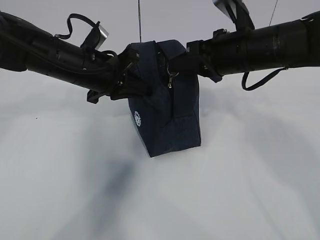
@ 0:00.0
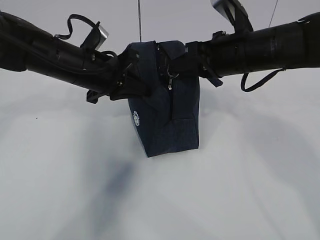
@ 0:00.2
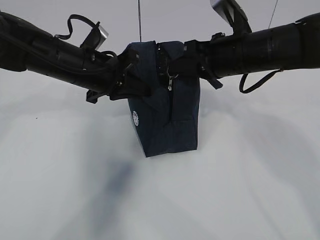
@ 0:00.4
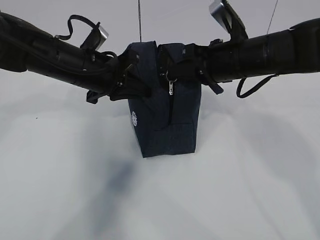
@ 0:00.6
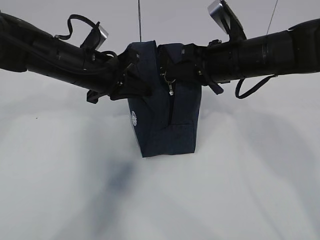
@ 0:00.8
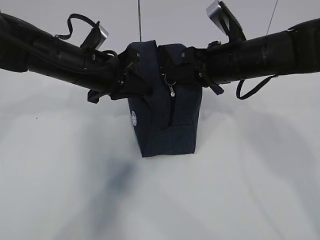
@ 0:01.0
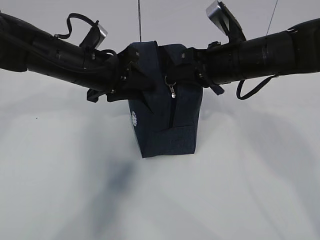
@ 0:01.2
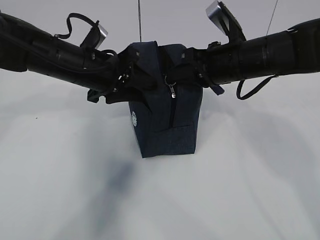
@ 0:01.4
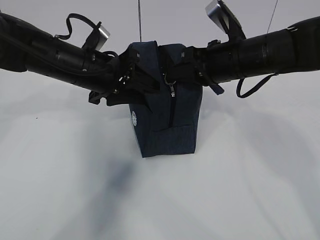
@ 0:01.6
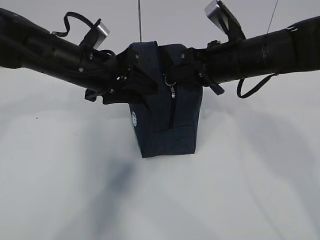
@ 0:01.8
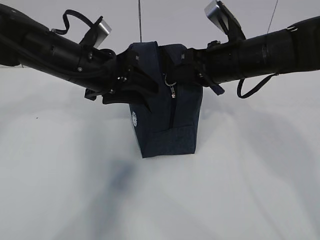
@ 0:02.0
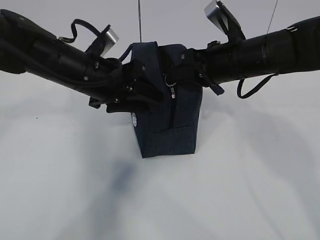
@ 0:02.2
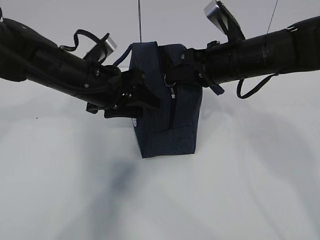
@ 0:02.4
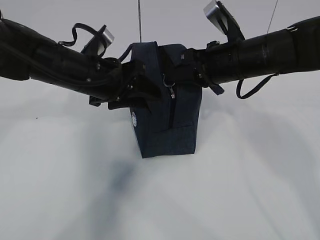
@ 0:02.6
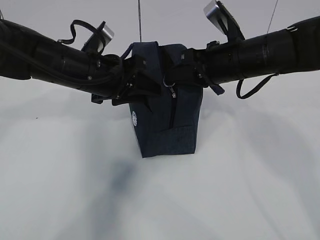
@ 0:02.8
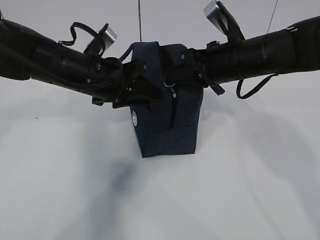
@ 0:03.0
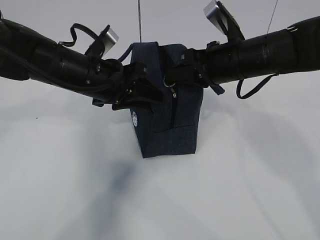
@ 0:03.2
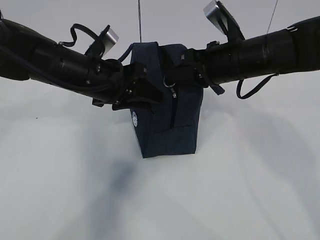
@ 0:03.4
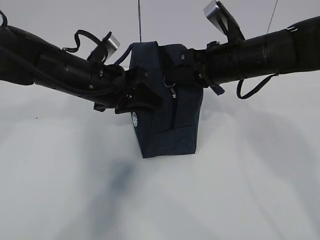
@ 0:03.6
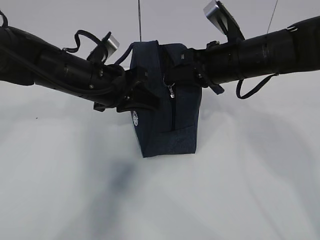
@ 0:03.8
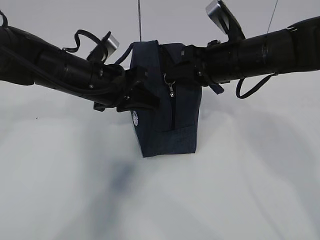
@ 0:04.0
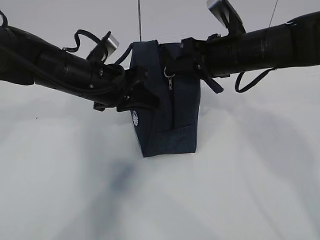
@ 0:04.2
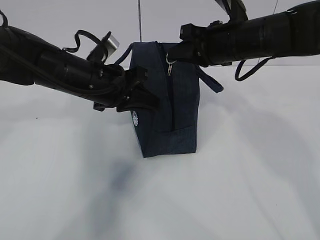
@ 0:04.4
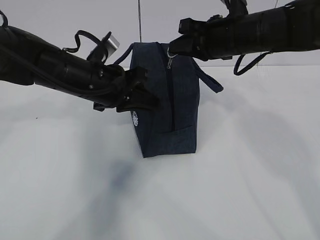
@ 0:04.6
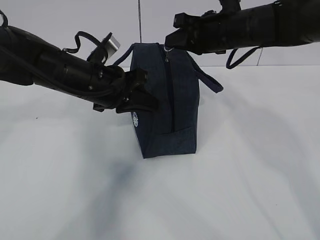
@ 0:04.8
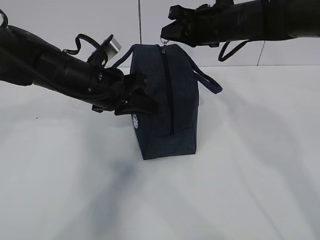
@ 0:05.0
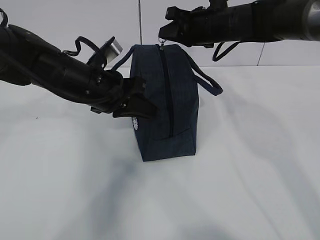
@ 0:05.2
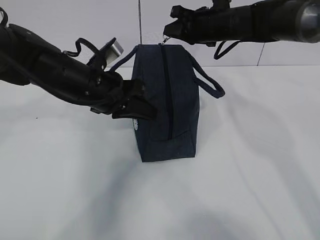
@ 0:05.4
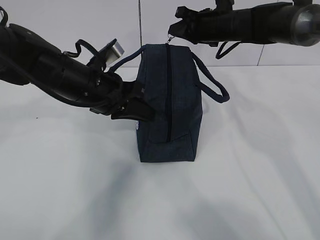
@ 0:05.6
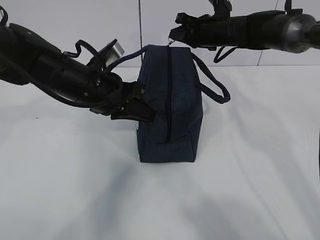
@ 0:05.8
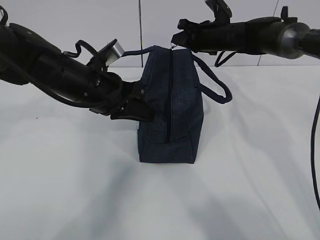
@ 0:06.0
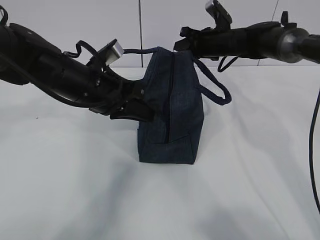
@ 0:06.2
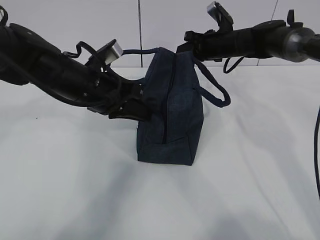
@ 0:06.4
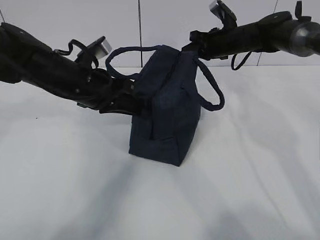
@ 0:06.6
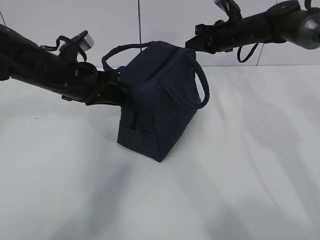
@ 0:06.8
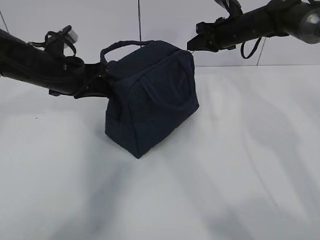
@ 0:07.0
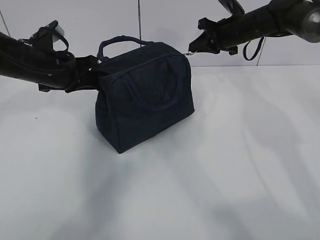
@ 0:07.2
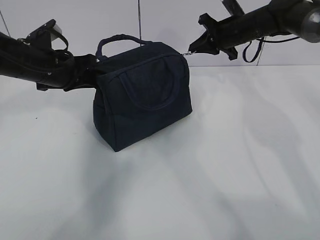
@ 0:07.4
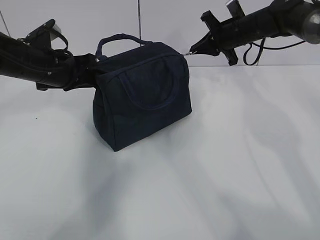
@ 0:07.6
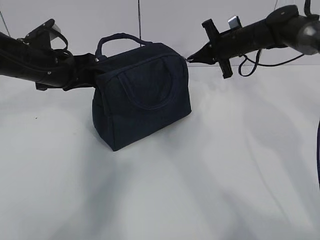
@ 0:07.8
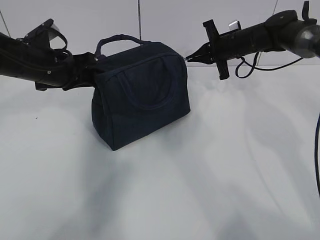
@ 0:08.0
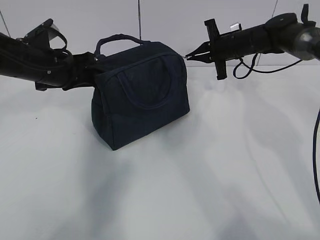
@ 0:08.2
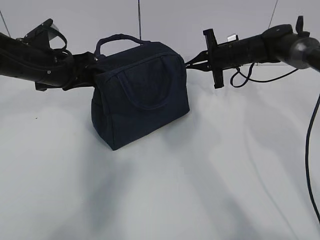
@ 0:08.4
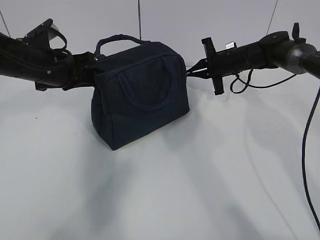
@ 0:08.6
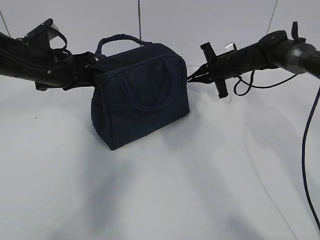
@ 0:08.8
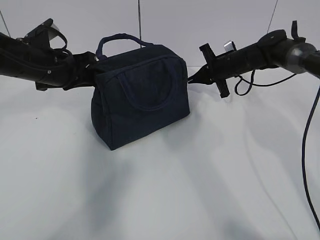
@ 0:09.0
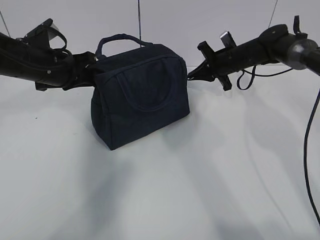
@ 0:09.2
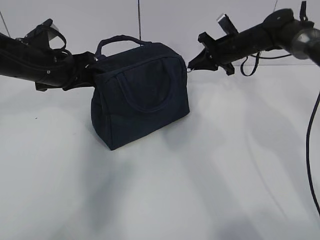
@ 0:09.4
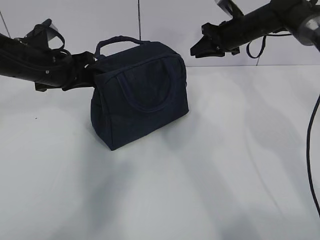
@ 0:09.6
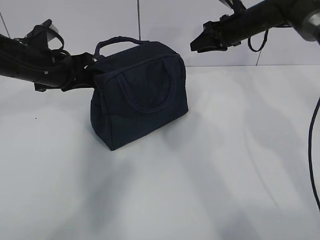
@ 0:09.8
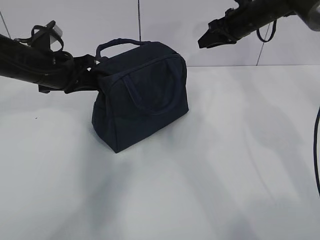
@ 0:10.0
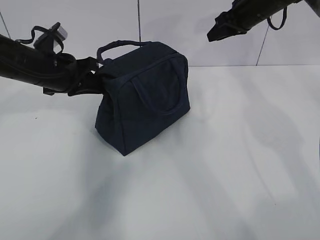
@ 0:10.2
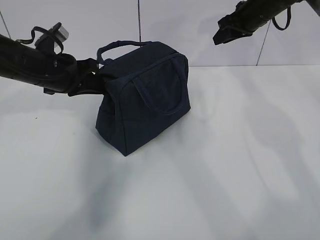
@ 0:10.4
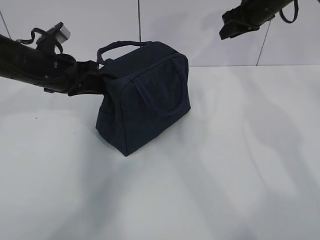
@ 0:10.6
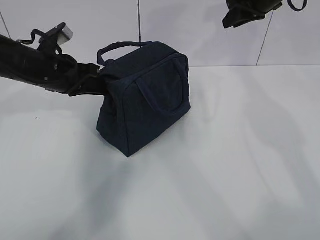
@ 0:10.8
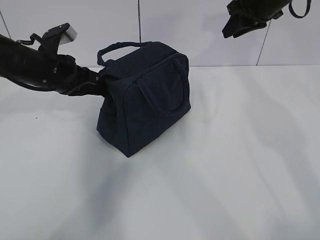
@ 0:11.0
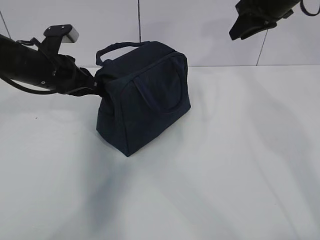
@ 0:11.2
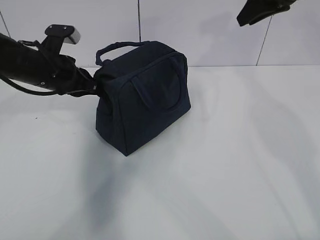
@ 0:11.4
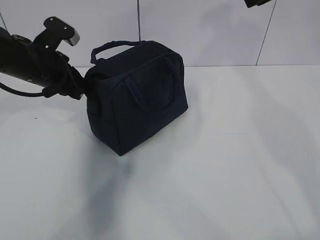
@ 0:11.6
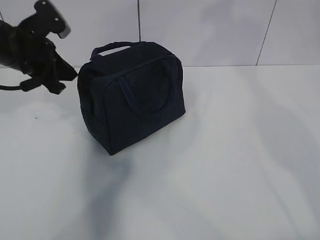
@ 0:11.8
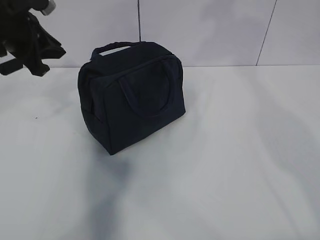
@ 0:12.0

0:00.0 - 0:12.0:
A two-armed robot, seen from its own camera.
0:00.0 - 0:01.6: The left gripper opens up.
0:01.6 - 0:03.0: The left gripper closes its fingers.
0:03.0 - 0:04.4: The left gripper closes.
0:04.4 - 0:06.0: The right gripper heads forward, covering roughly 15 cm.
0:06.0 - 0:07.6: The right gripper moves to the right, some 5 cm, while the left gripper heads to the left and forward, covering approximately 10 cm.
0:07.6 - 0:09.0: The right gripper shifts some 10 cm downward.
0:09.0 - 0:10.4: The right gripper shifts some 15 cm upward, and opens its fingers.
0:10.4 - 0:12.0: The left gripper moves upward, some 10 cm. Meanwhile the right gripper moves upward and backward, approximately 20 cm.

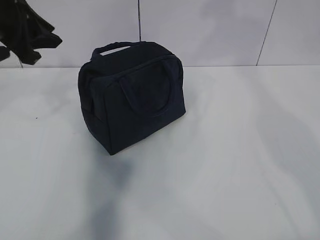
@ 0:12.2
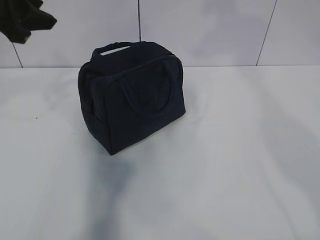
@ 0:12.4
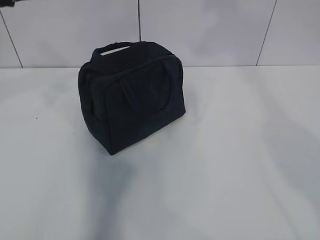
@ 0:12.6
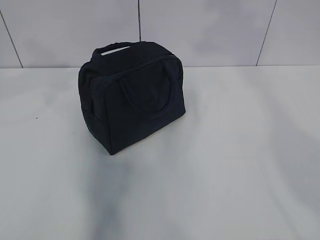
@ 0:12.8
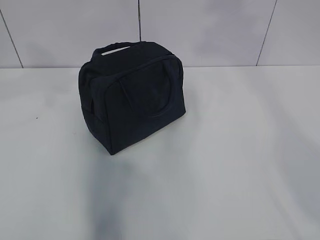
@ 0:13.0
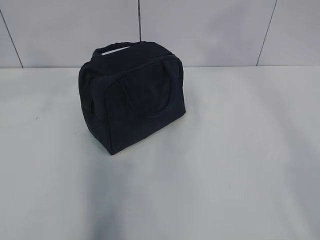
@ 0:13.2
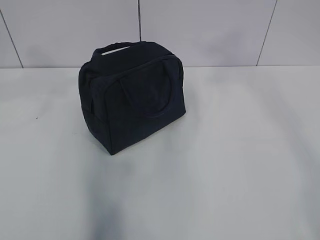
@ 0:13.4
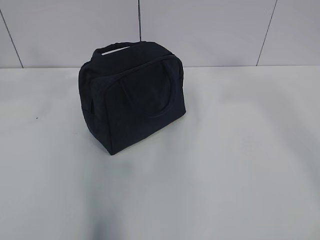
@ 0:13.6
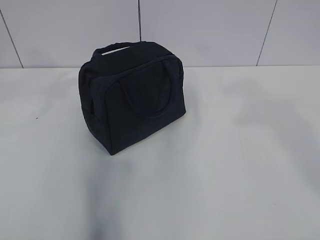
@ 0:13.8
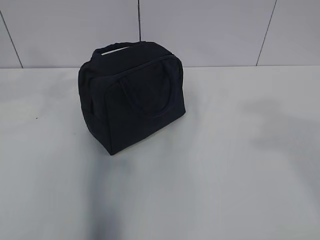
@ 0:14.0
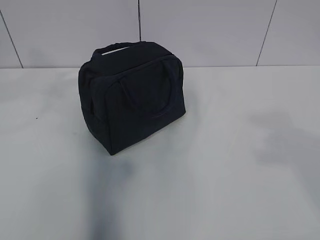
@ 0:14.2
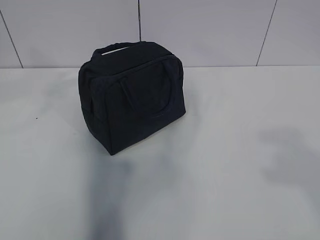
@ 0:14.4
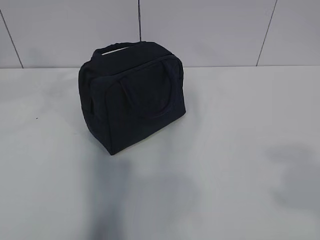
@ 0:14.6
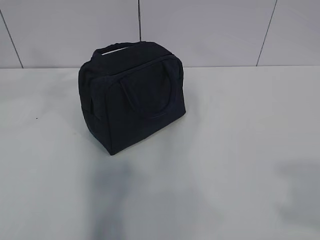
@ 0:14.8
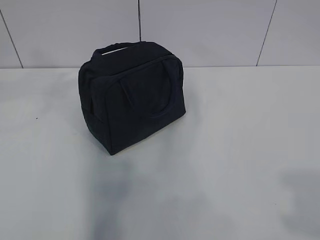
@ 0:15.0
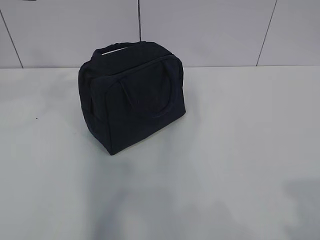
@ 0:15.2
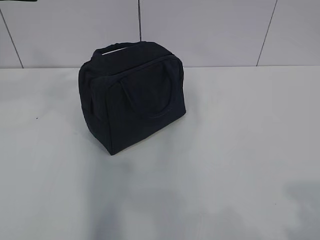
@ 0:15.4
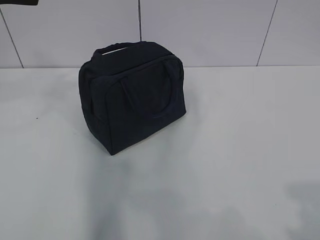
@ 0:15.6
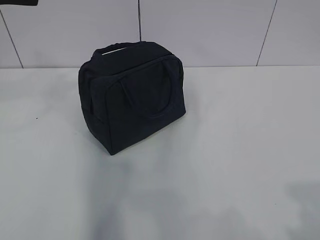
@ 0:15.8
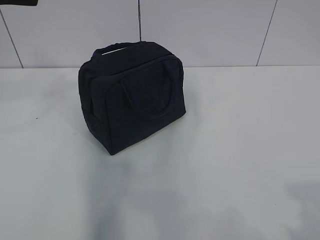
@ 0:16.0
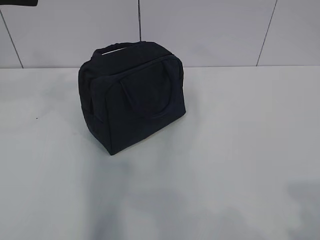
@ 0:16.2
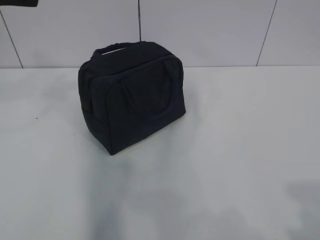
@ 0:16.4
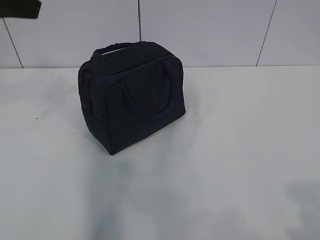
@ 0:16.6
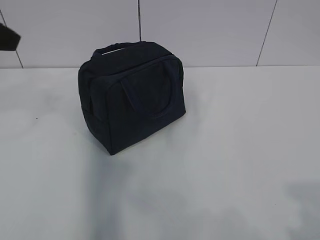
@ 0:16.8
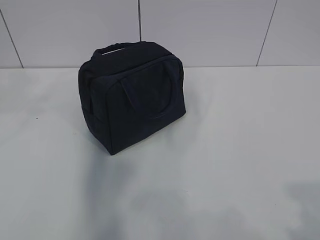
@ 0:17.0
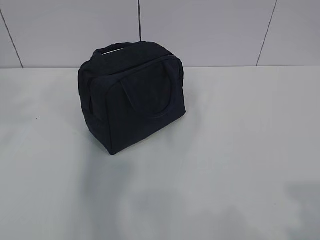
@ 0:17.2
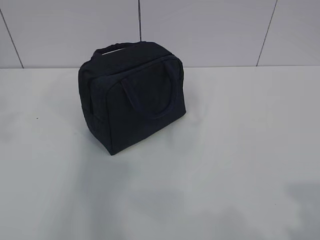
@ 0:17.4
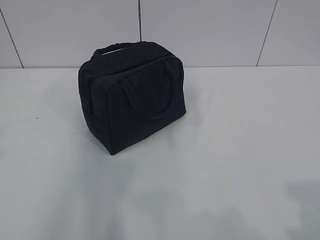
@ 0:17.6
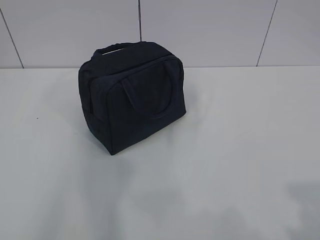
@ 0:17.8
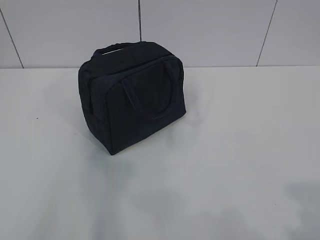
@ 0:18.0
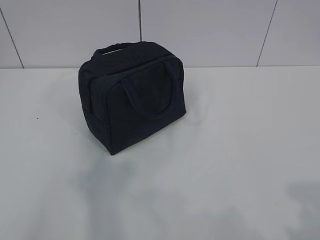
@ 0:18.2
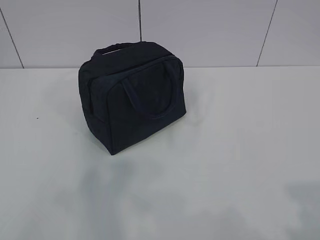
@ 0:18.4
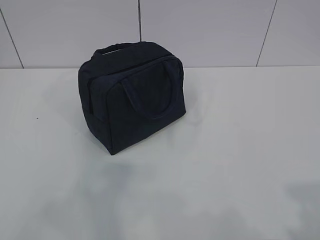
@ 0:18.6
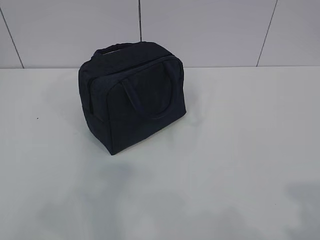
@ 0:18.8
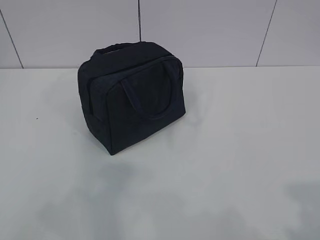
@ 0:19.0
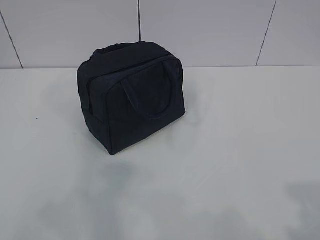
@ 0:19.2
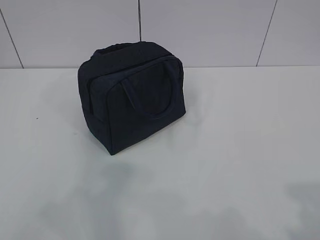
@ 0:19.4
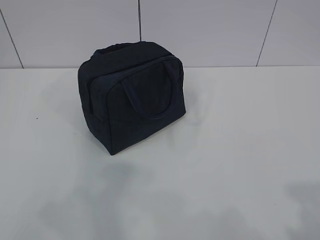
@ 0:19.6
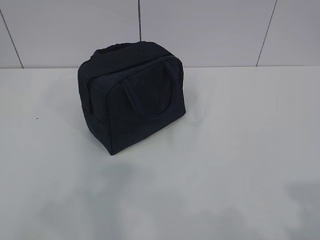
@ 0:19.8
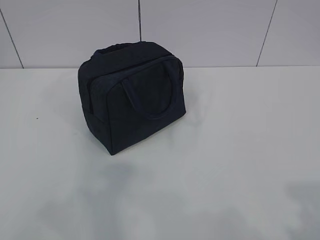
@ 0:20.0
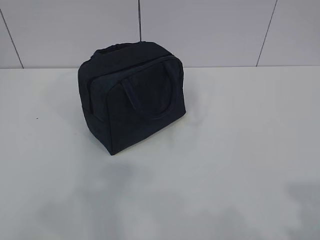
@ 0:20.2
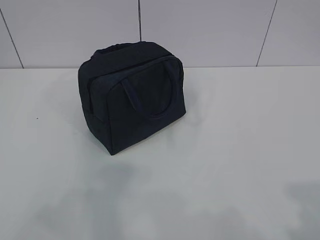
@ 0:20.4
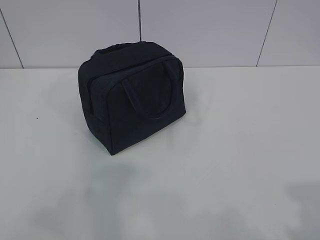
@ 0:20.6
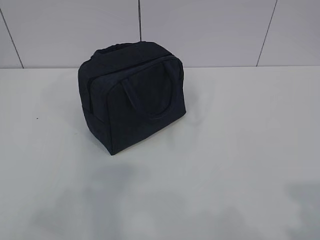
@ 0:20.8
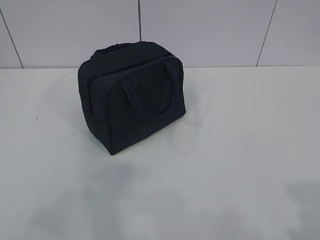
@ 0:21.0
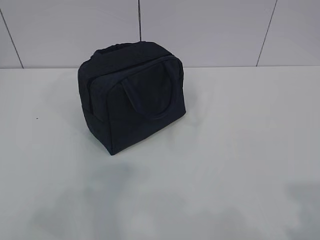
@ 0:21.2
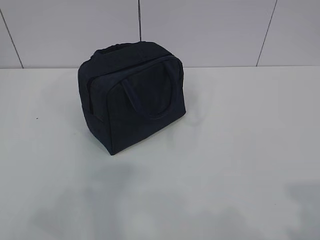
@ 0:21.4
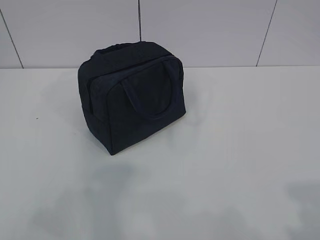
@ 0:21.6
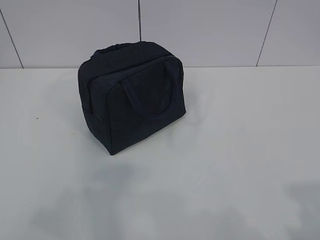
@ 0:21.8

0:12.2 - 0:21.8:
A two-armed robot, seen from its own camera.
0:12.2 - 0:13.8: The left gripper goes some 15 cm backward and upward, and opens its fingers. The right gripper is displaced backward by about 30 cm.
0:13.8 - 0:15.4: The right gripper is displaced downward and backward by some 25 cm.
0:17.0 - 0:18.6: The left gripper shifts some 20 cm backward.
0:18.6 - 0:20.2: Both grippers stay put.
